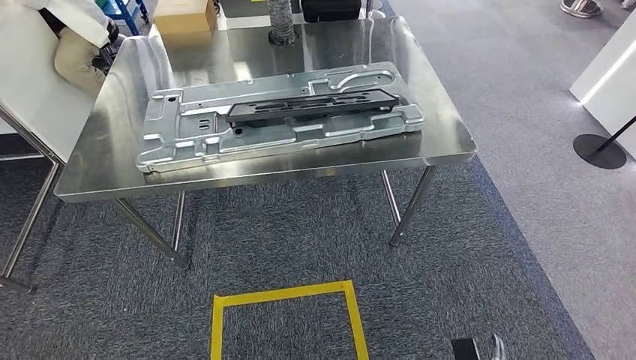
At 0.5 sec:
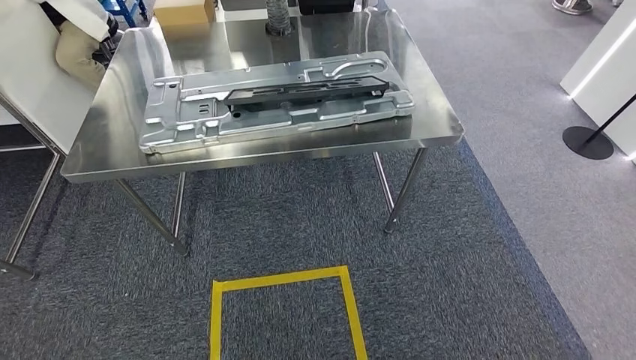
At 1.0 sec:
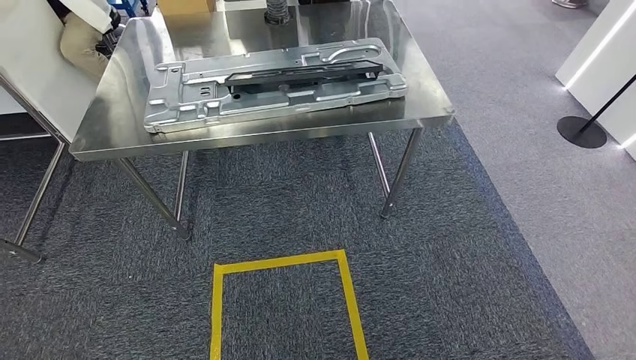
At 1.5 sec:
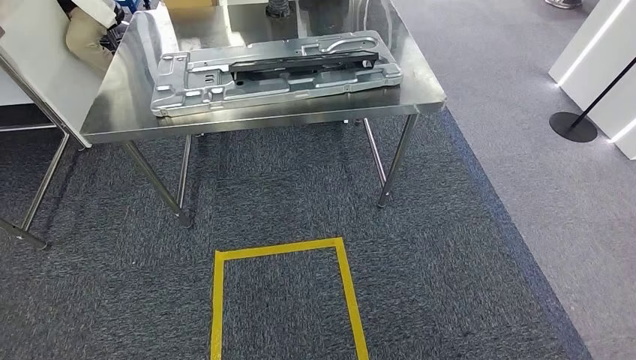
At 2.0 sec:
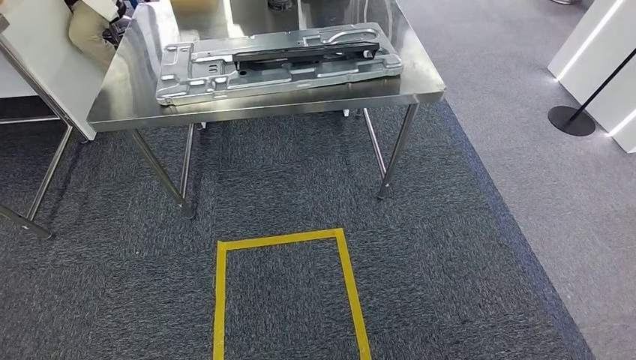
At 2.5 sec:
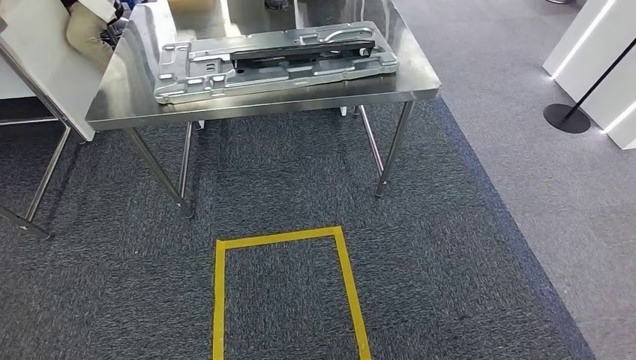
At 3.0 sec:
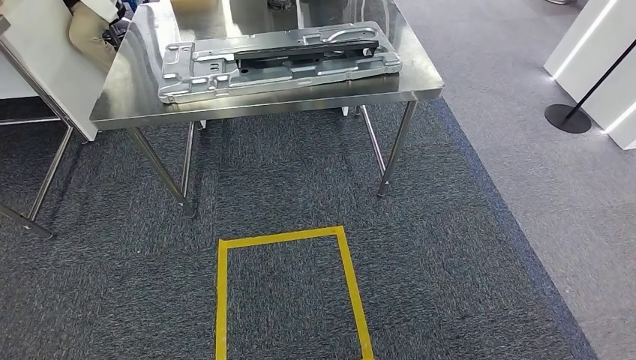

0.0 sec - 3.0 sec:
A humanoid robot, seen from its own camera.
Step, 0.0 sec - 3.0 sec: Move to the initial position of the workbench.
1.5 sec - 3.0 sec: The hands make only small movements.
